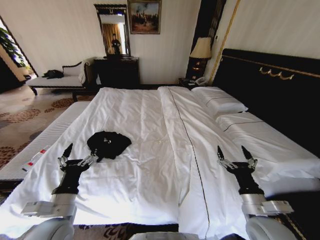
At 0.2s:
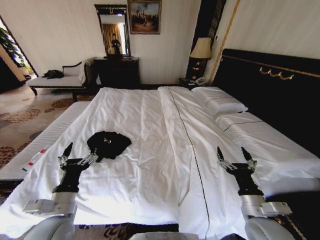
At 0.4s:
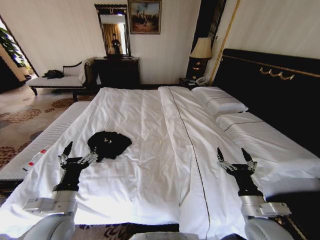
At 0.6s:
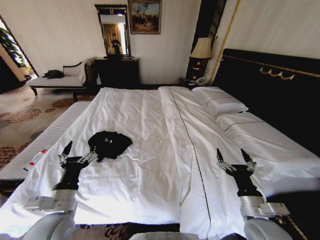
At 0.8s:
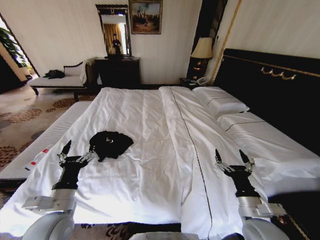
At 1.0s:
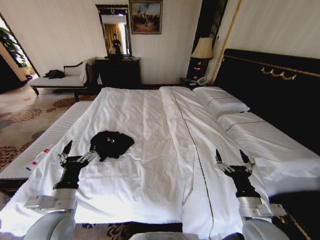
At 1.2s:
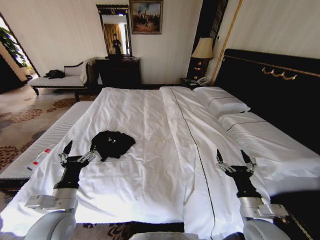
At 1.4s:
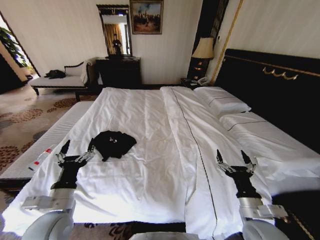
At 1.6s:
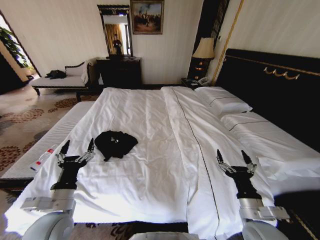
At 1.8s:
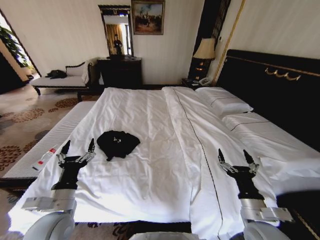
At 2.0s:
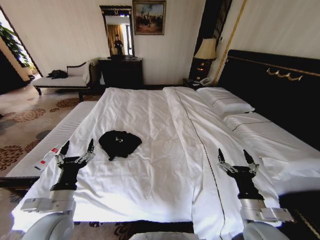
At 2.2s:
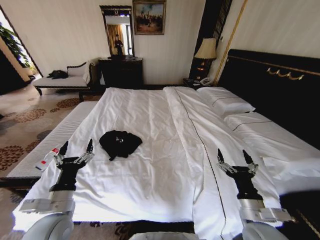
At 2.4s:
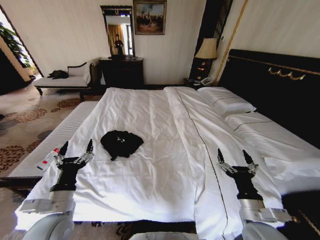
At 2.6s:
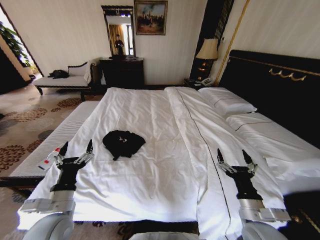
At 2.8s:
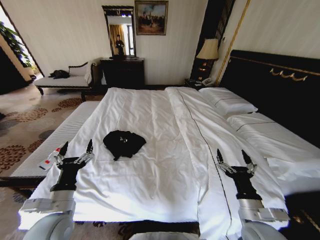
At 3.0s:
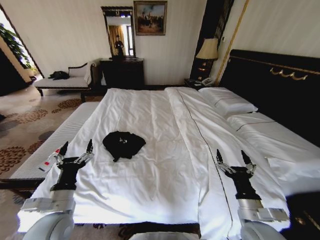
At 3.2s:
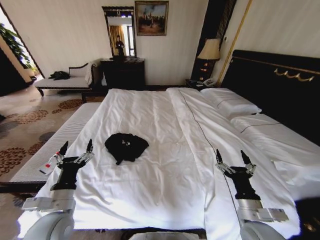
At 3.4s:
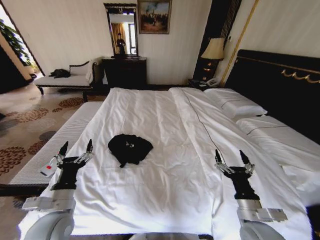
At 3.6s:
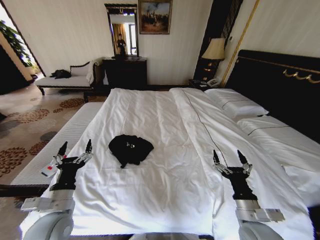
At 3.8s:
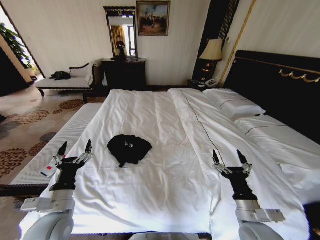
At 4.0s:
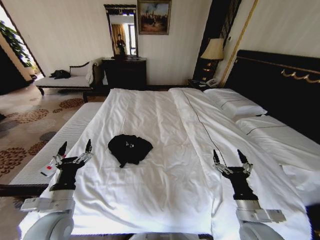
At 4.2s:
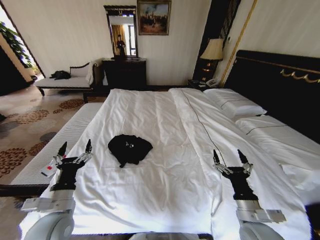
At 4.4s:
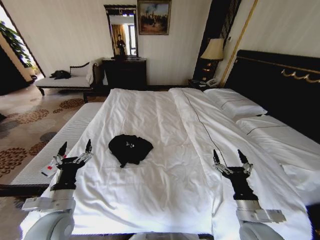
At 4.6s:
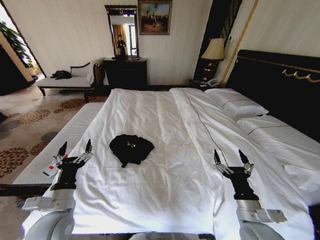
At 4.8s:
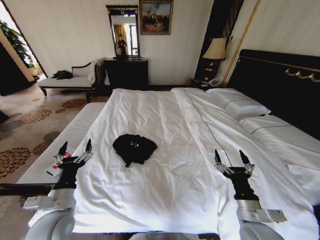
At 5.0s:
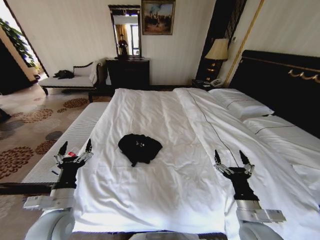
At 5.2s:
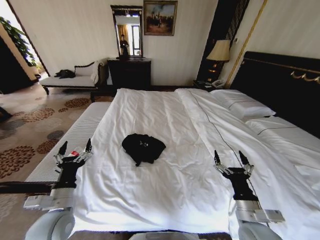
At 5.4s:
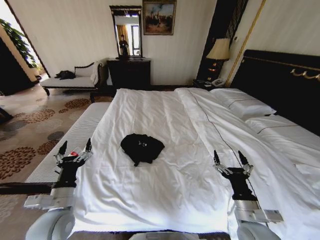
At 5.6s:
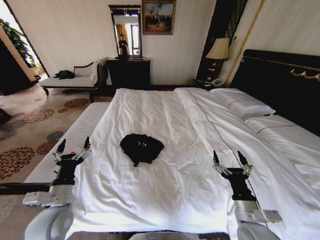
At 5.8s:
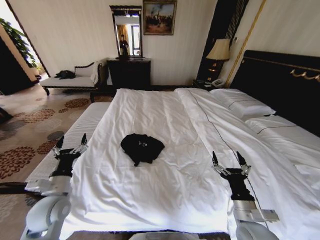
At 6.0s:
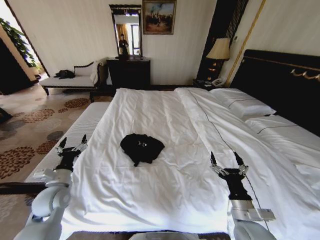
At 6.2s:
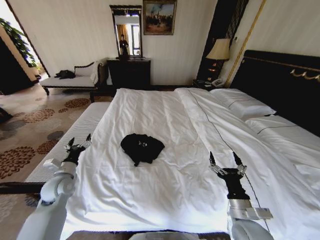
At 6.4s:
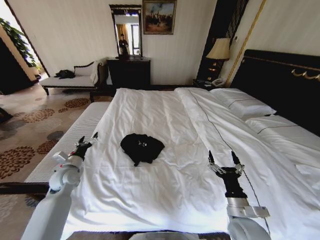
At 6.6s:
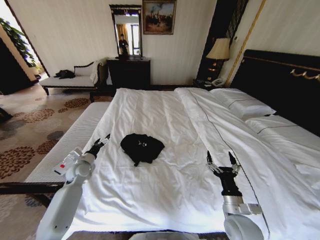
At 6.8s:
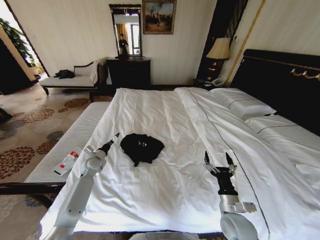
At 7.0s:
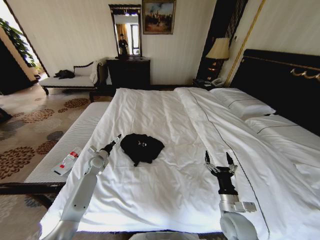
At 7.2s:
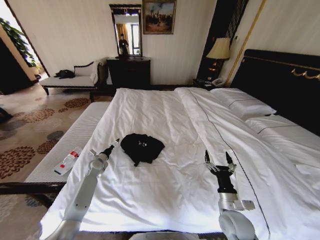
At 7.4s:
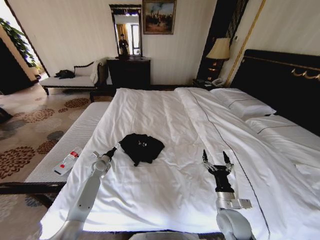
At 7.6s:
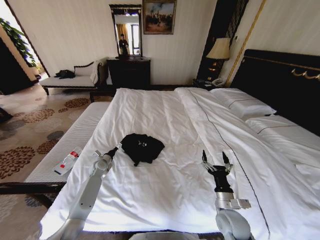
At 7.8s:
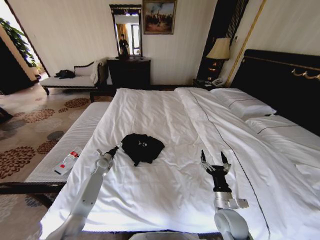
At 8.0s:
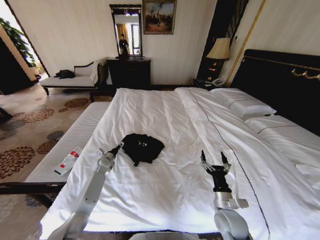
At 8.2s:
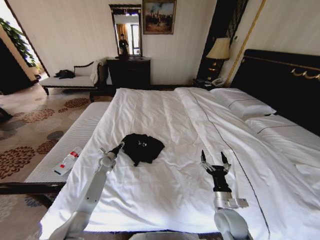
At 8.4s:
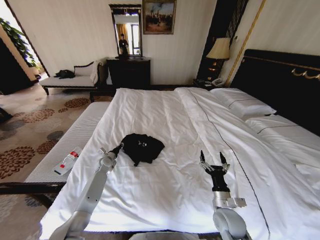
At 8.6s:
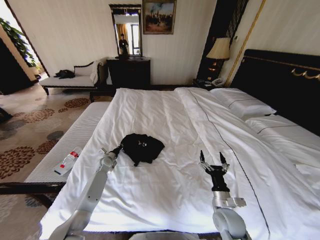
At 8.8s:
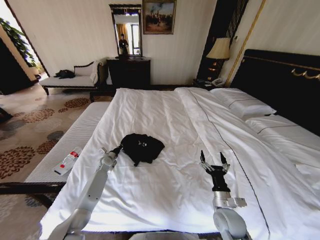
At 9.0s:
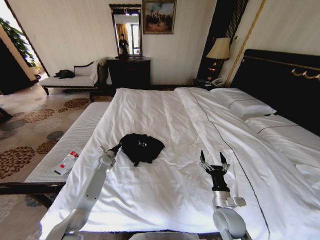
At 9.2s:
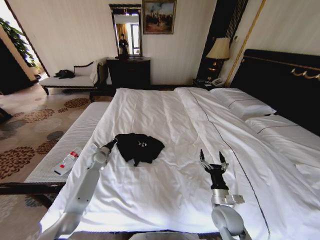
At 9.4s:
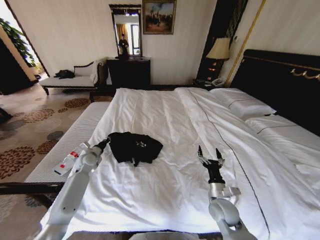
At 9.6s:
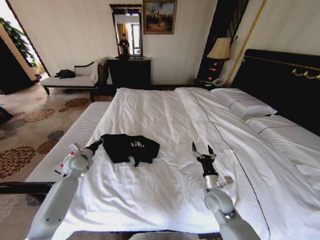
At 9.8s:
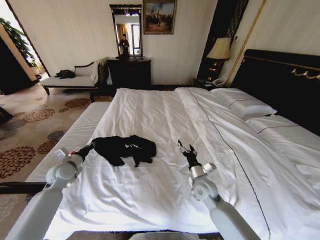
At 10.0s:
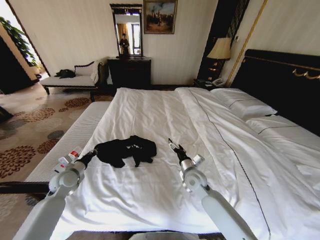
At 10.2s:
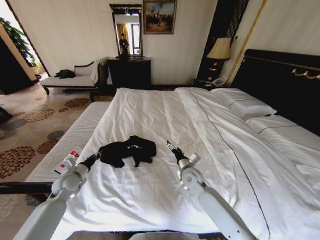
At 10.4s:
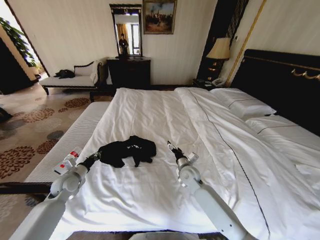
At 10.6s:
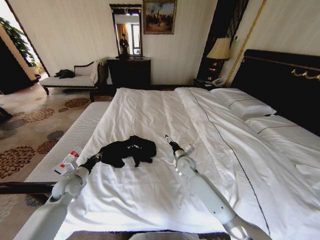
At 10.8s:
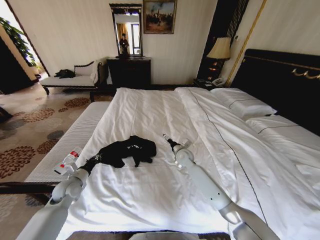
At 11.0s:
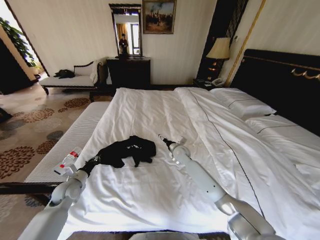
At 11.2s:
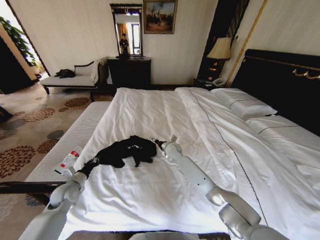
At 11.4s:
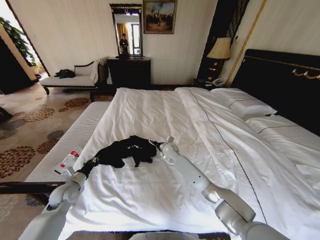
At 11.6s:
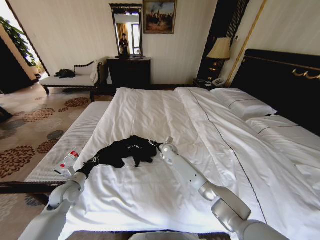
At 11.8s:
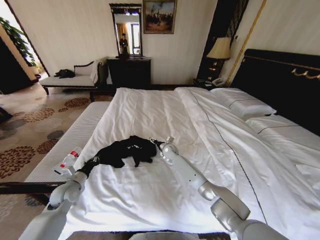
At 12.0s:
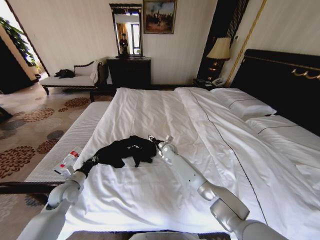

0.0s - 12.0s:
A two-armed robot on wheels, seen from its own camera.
Task of the whole recording: Fold the clothes on the bed.
4.4s - 6.0s: The left gripper moves forward and to the left, roughly 10 cm.
6.0s - 7.6s: The left gripper heads forward and downward, covering roughly 25 cm, while the right gripper moves downward, approximately 5 cm.
7.6s - 9.0s: The left gripper closes.
9.0s - 10.4s: The left gripper travels backward, to the left and upward by approximately 20 cm. The right gripper moves forward and to the left, some 20 cm.
10.4s - 12.0s: The right gripper goes roughly 20 cm forward and to the left.

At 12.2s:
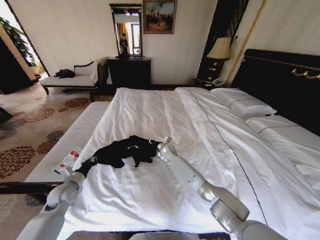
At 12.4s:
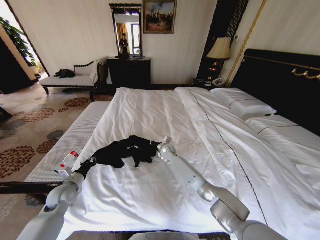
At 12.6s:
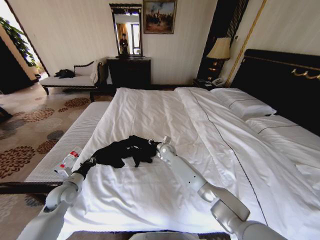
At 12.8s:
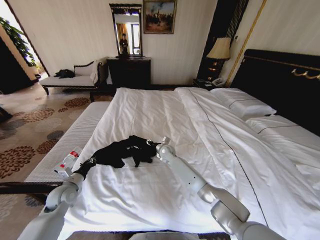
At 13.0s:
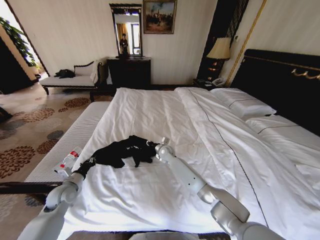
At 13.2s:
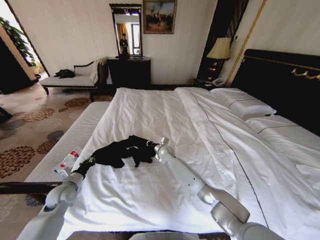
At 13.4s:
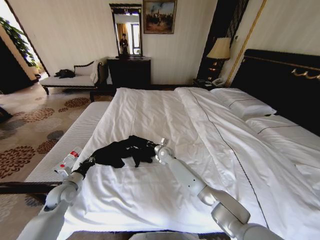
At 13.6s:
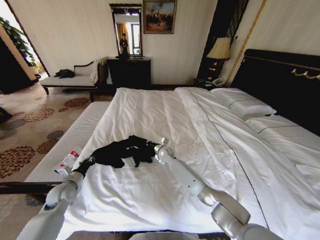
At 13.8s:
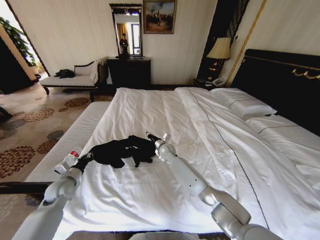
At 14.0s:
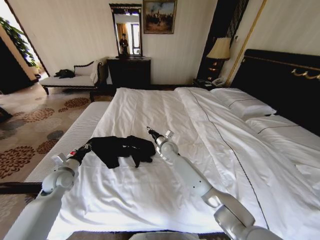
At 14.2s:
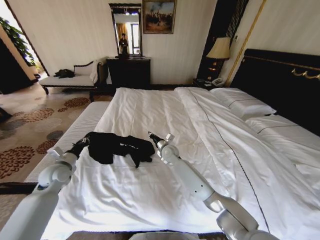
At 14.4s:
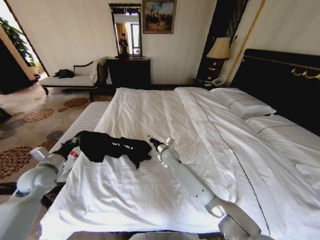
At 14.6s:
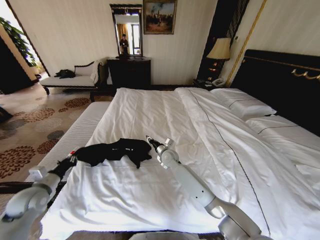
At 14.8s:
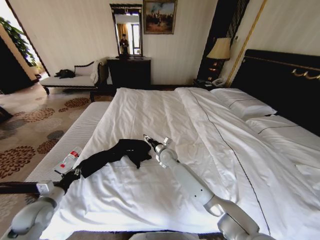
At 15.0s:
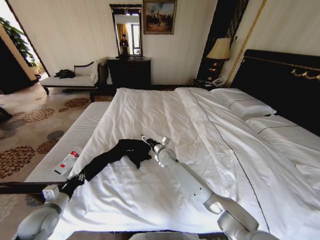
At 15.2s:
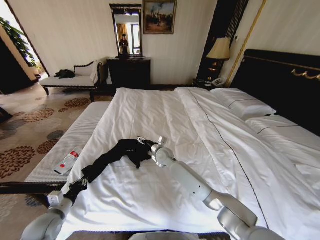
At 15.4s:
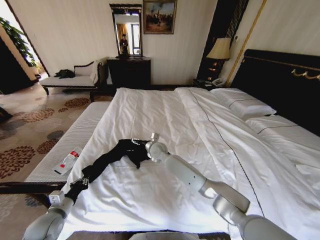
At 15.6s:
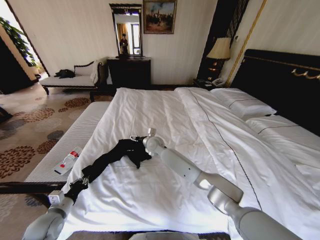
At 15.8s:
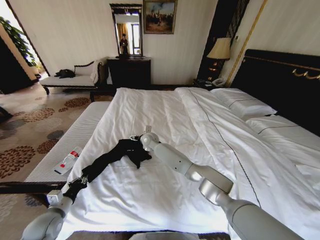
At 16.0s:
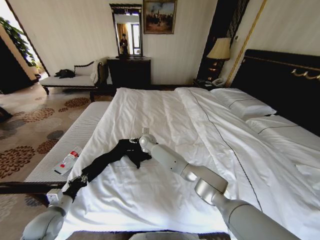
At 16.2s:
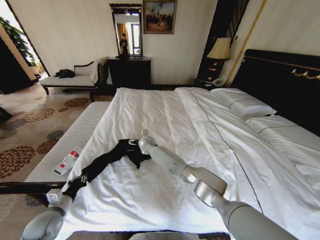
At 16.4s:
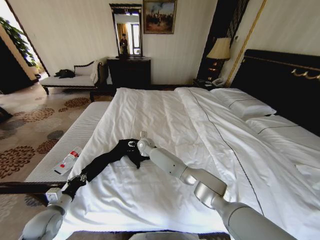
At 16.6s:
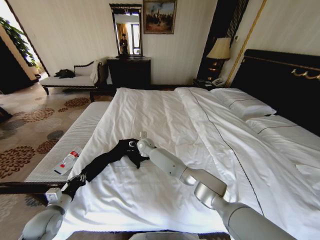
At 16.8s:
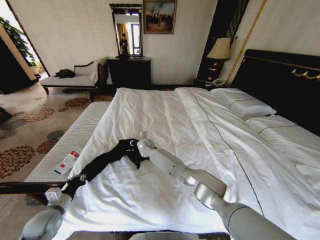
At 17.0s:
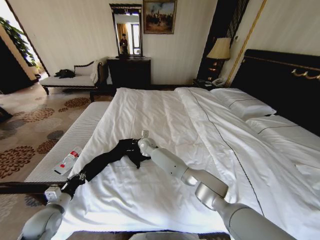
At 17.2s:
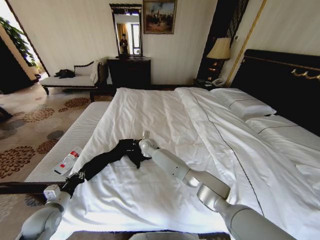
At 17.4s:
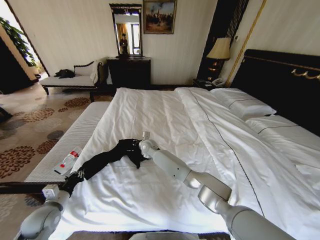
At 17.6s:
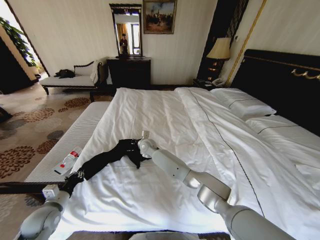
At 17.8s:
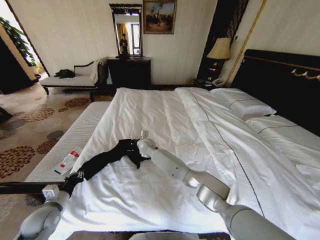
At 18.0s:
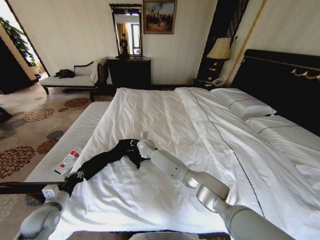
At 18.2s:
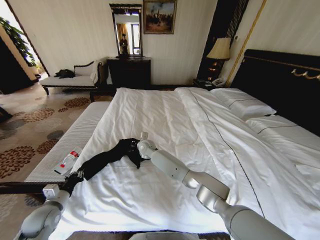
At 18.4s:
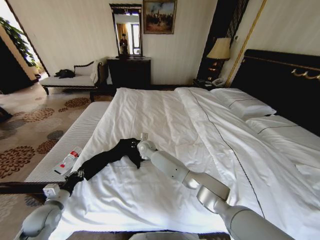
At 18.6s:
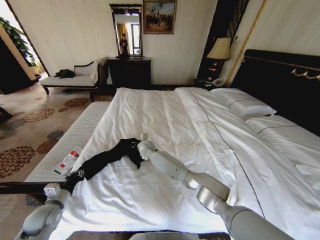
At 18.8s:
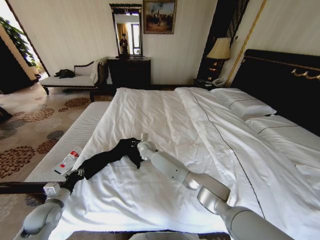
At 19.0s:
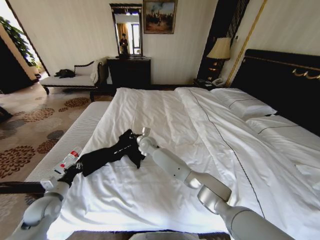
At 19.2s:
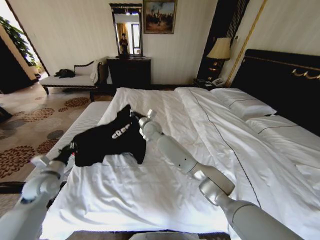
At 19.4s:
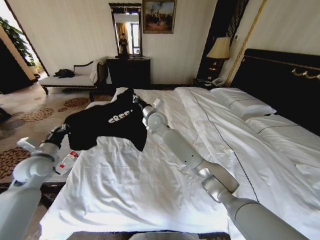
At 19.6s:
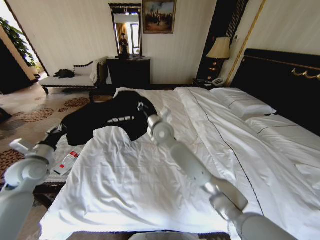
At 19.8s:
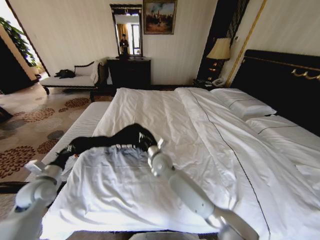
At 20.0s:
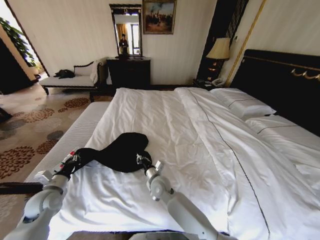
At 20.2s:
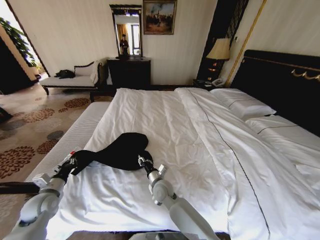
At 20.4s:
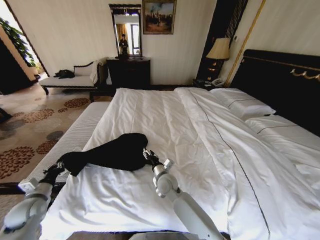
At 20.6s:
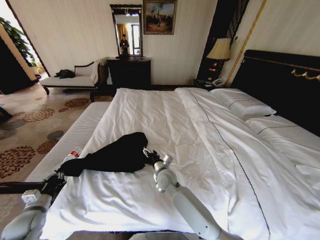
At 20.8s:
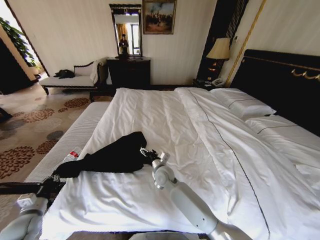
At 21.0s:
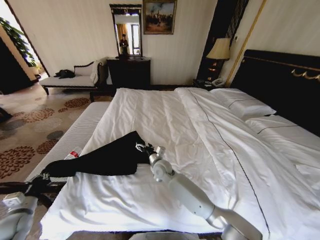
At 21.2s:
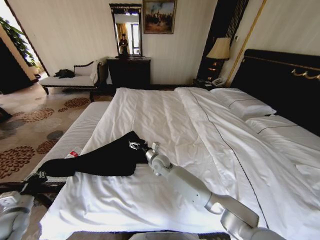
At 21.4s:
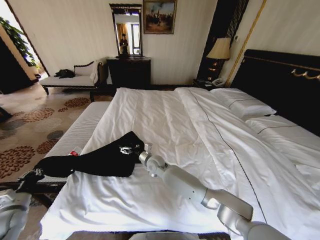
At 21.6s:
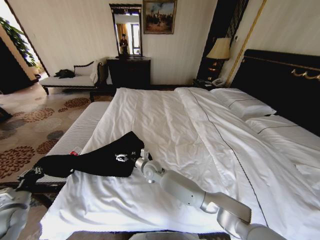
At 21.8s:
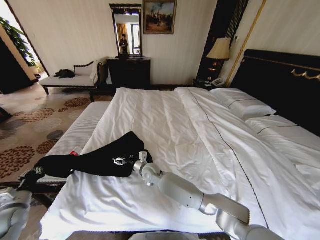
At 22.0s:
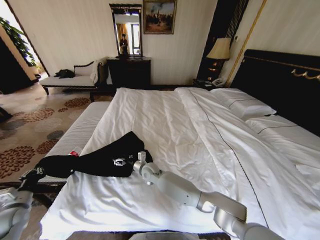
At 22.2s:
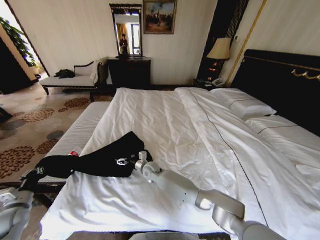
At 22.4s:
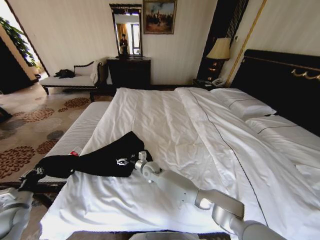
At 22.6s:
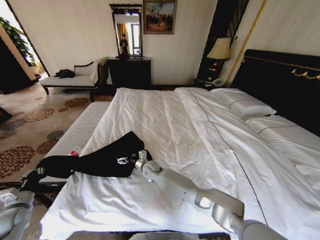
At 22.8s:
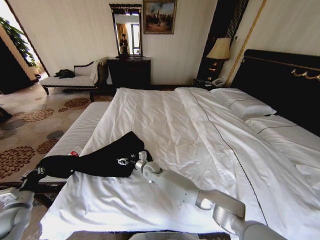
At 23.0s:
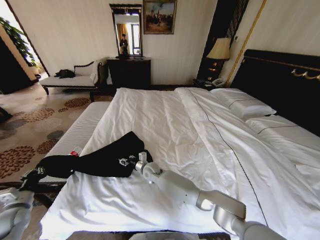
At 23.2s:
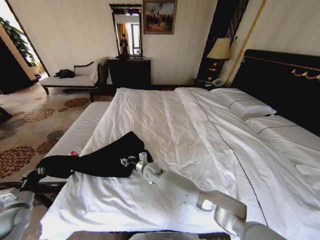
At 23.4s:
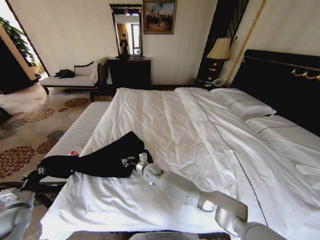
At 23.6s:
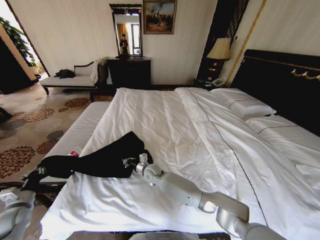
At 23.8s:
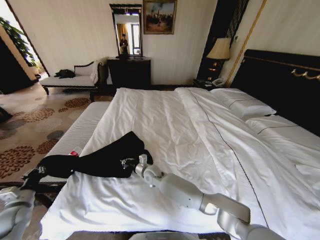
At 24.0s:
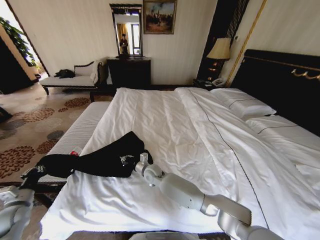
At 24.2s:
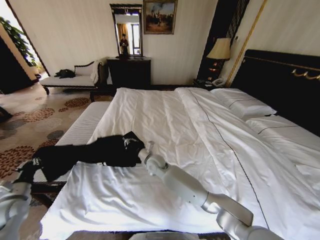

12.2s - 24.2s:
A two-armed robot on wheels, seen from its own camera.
Task of the whole recording: Fold the clothes on the bed.
12.2s - 13.8s: The right gripper closes its fingers.
13.8s - 15.2s: The left gripper heads backward, covering roughly 10 cm; the right gripper changes place by some 5 cm, and opens.
15.2s - 16.6s: The right gripper heads to the left and forward, covering approximately 10 cm.
16.6s - 18.2s: The right gripper closes up.
18.2s - 19.8s: The left gripper is displaced upward and forward by roughly 10 cm, while the right gripper moves backward and to the right, approximately 15 cm, and reaches roughly 15 cm upward, then returns.
19.8s - 21.2s: The left gripper moves backward, to the left and downward, about 15 cm. The right gripper shifts some 5 cm downward, moves some 10 cm backward and comes back, and opens up.
21.2s - 22.6s: The right gripper travels to the left by some 5 cm.
22.6s - 24.2s: The left gripper shifts by some 5 cm. Meanwhile the right gripper is displaced upward by about 10 cm, and closes up.
